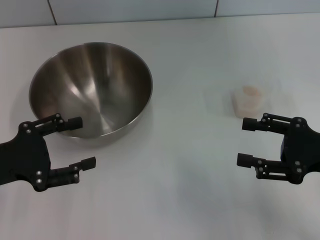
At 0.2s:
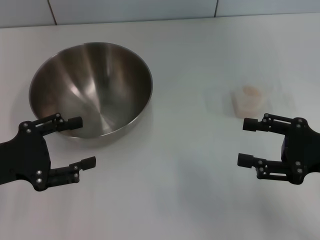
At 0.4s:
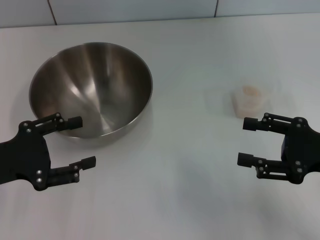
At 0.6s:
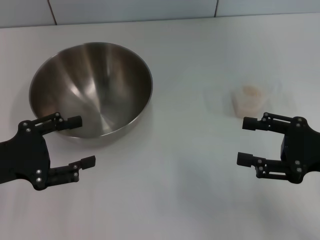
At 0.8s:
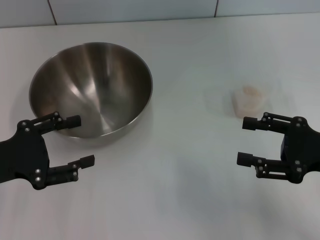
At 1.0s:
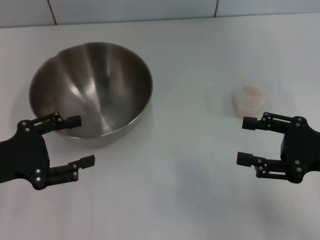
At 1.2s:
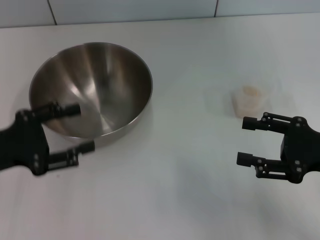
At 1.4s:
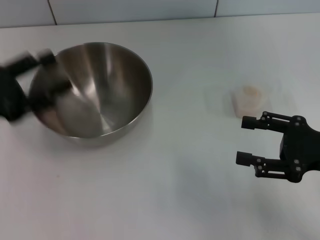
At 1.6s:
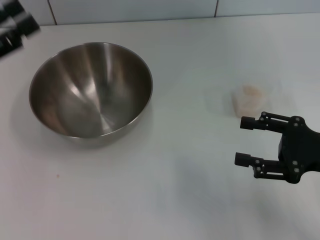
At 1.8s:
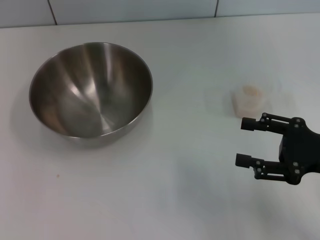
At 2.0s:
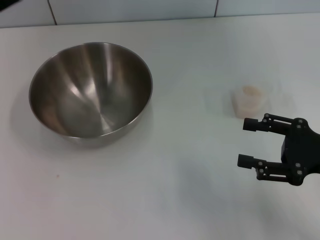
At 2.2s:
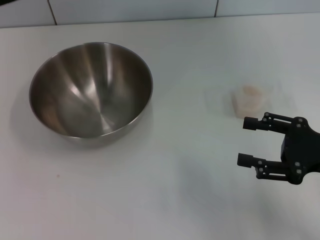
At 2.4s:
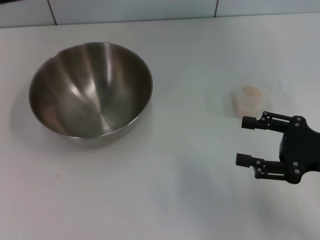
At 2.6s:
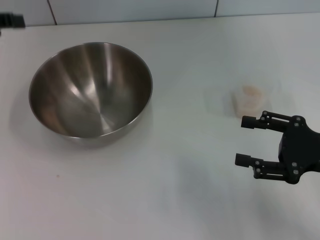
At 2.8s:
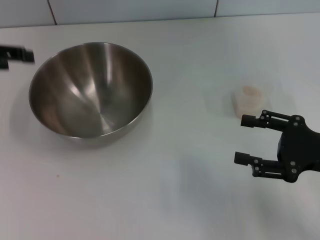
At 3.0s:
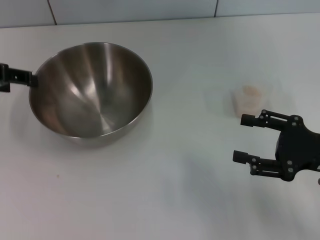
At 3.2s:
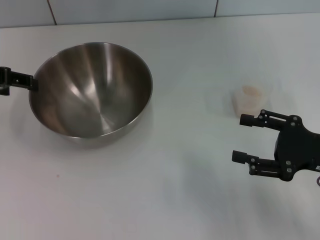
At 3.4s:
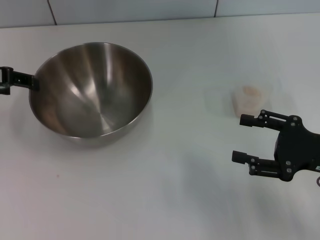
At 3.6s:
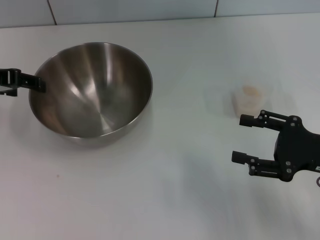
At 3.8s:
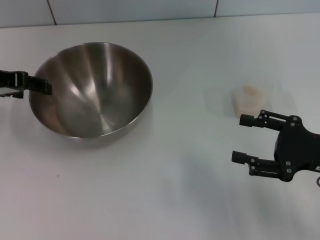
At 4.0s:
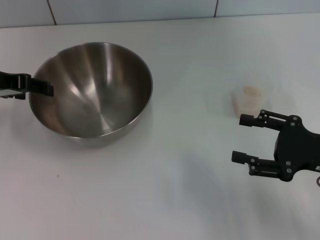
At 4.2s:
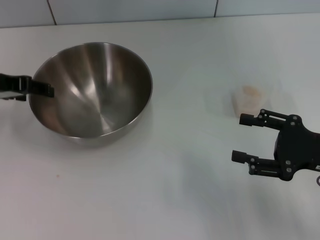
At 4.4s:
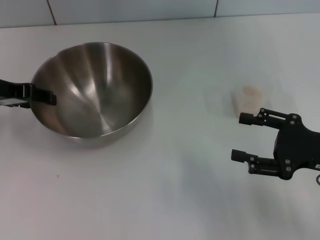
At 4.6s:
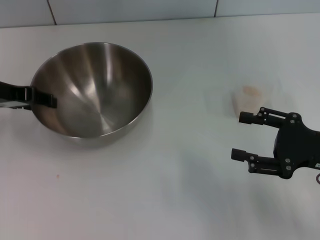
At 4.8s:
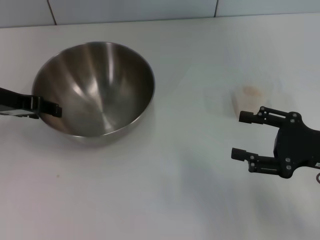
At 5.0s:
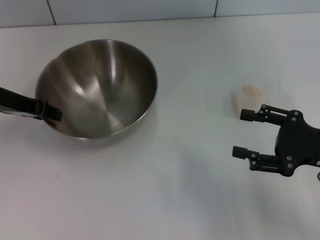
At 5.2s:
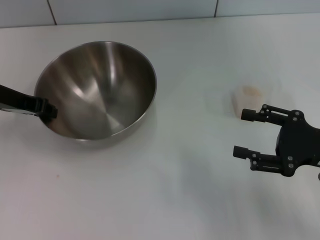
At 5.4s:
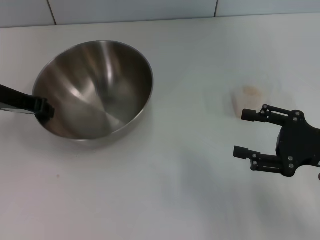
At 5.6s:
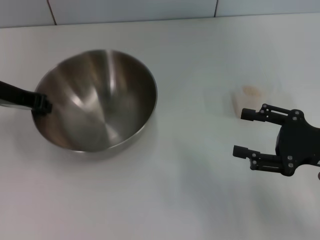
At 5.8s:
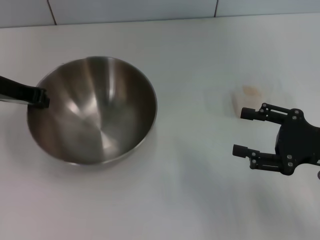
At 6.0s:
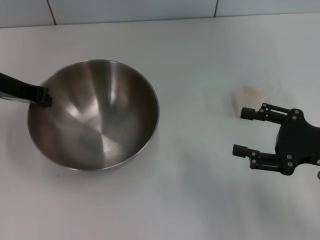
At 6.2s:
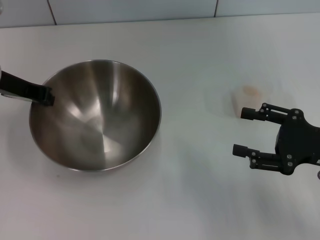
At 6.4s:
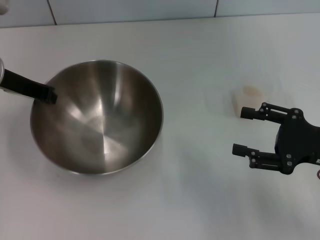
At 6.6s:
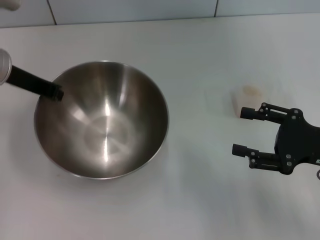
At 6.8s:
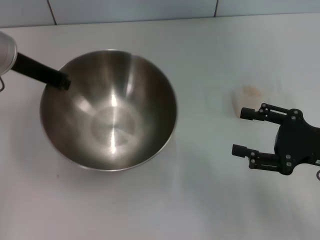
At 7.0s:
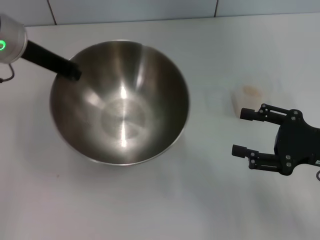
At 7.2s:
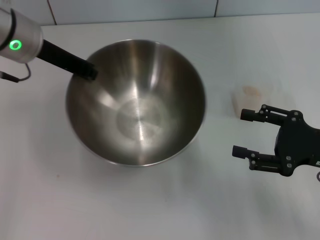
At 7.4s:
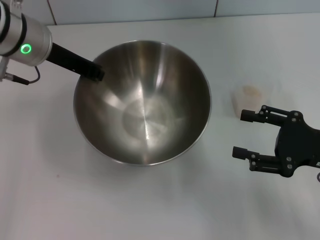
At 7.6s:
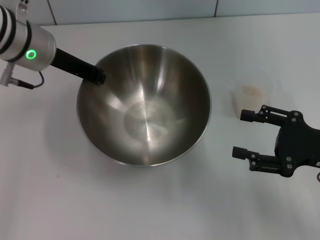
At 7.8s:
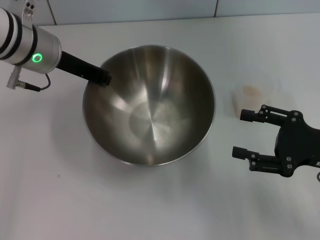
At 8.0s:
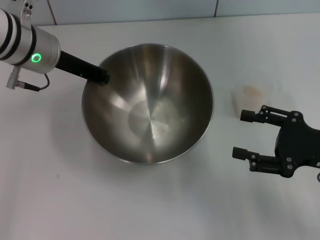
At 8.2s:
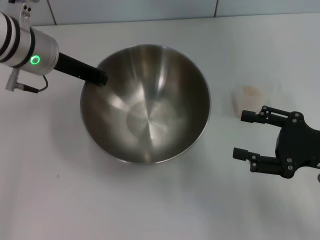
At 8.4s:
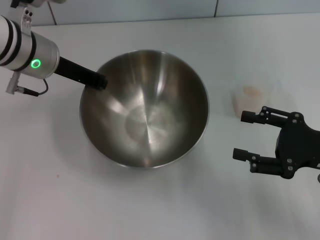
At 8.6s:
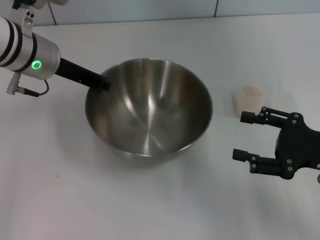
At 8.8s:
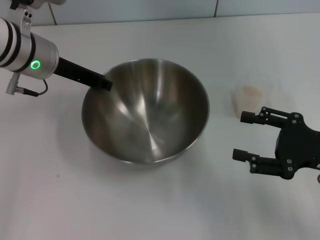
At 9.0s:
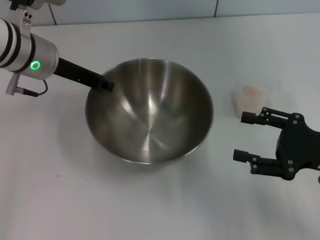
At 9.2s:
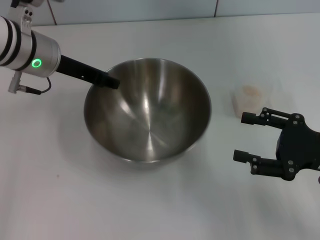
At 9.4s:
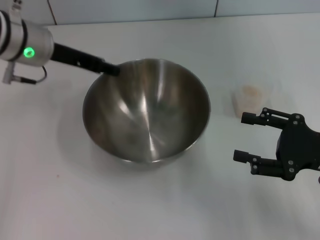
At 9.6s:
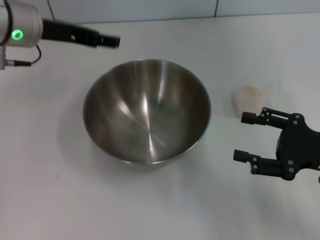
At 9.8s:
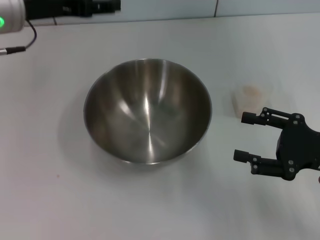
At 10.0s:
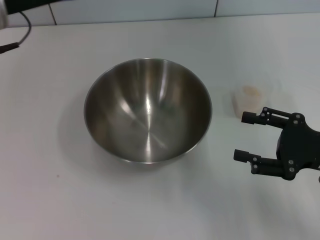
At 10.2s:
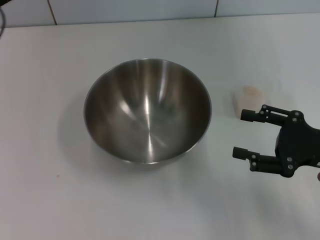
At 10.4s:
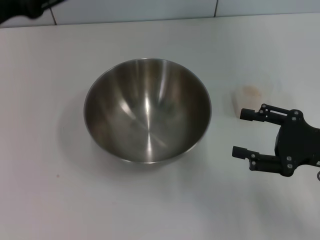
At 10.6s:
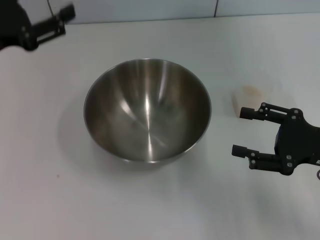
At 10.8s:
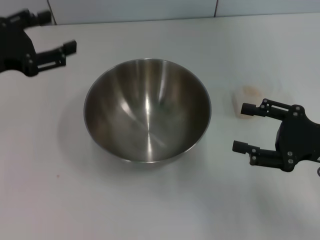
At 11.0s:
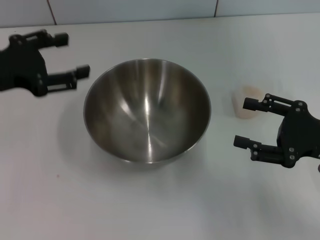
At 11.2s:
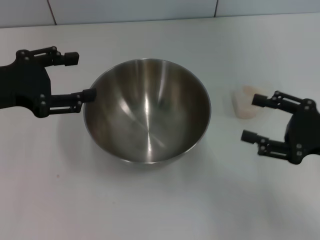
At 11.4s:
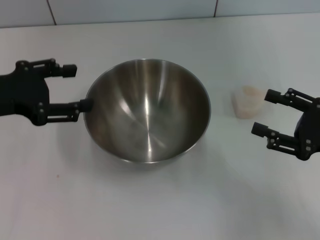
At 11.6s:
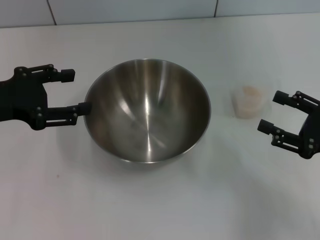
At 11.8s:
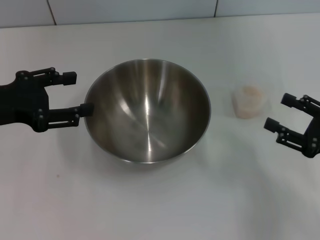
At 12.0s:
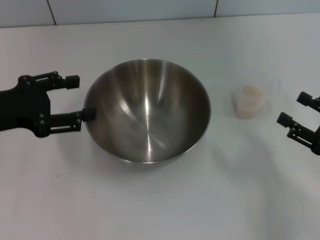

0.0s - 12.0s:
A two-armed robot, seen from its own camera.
Task of the whole recording: Place the bowl in the middle of the table with one hand and pour the rice from the grain cup into it with the other hand.
Step, 0.0s - 6.8s: Pick up the bowl with the left gripper.
Step, 7.0s - 9.4s: Place the bowl in the center of view with the left gripper.
0.0s - 1.6s: The left gripper is displaced upward by approximately 5 cm.
1.6s - 3.0s: The left gripper moves forward, some 5 cm.
3.0s - 4.4s: The left gripper travels downward by about 5 cm.
4.4s - 6.0s: The left gripper closes up.
6.0s - 7.6s: The left gripper heads to the right, covering approximately 10 cm.
7.6s - 9.0s: There are only small adjustments of the grippers.
9.0s - 10.4s: The left gripper goes approximately 10 cm to the left and backward, and opens up.
10.4s - 12.0s: The left gripper ends up approximately 5 cm from where it was. The right gripper changes place by some 5 cm.

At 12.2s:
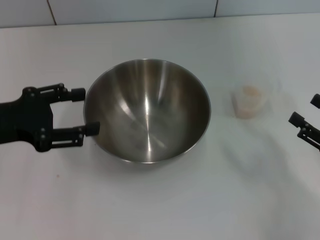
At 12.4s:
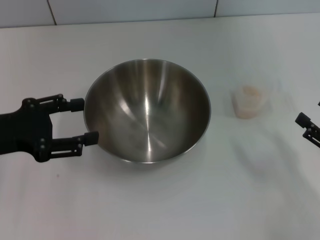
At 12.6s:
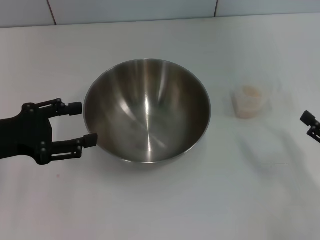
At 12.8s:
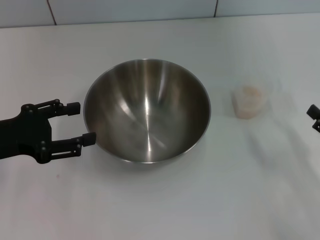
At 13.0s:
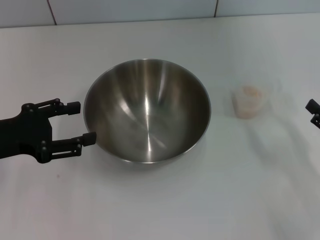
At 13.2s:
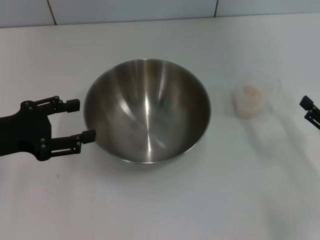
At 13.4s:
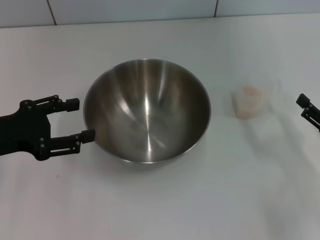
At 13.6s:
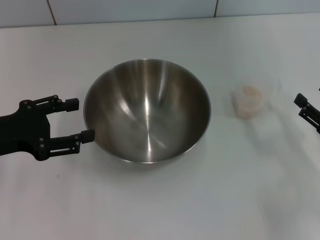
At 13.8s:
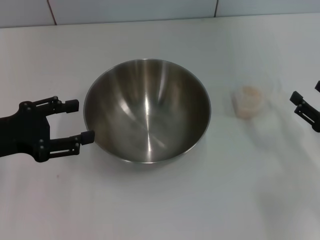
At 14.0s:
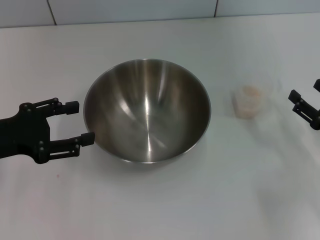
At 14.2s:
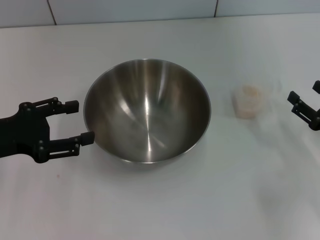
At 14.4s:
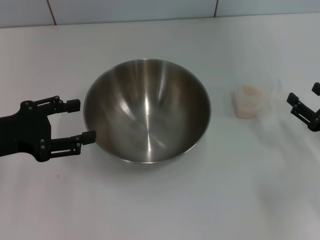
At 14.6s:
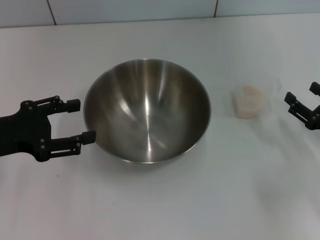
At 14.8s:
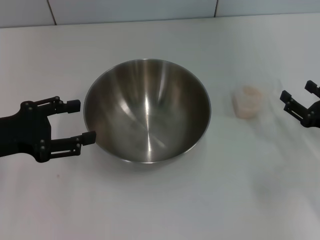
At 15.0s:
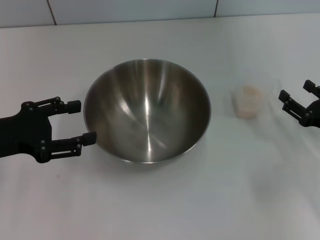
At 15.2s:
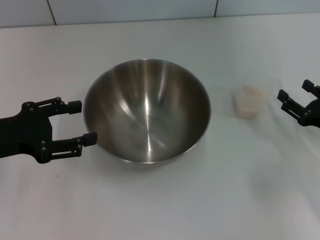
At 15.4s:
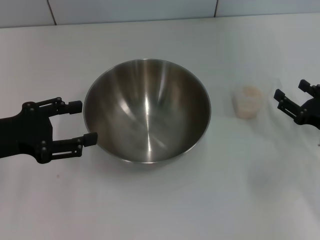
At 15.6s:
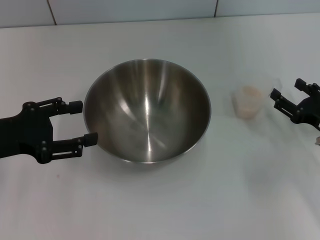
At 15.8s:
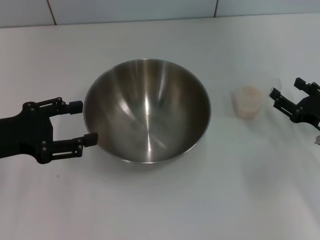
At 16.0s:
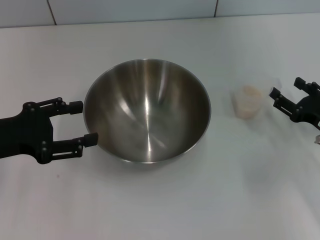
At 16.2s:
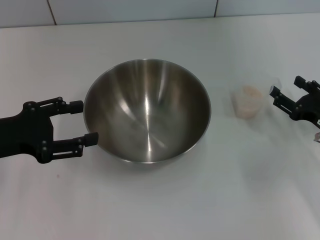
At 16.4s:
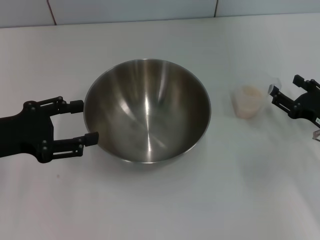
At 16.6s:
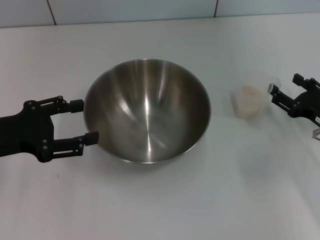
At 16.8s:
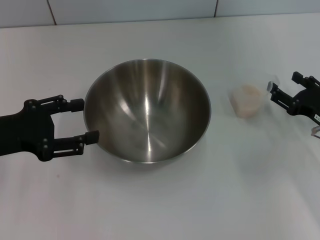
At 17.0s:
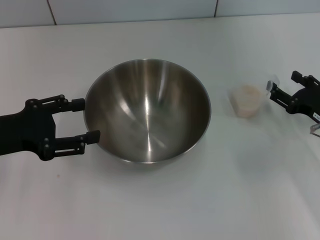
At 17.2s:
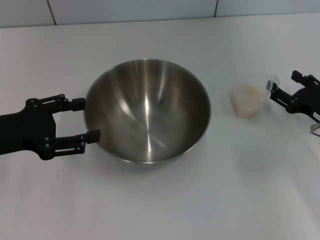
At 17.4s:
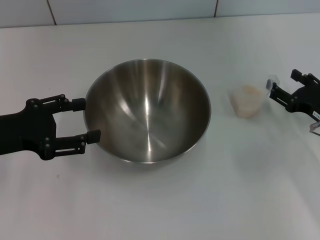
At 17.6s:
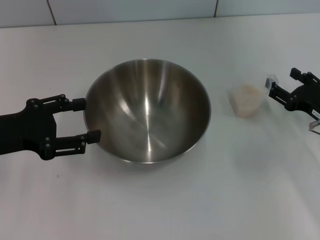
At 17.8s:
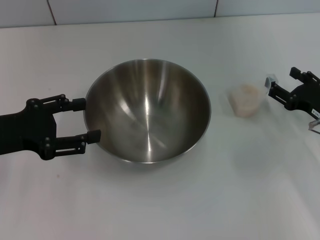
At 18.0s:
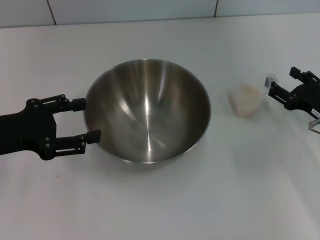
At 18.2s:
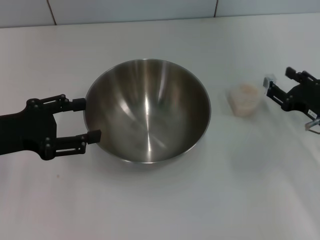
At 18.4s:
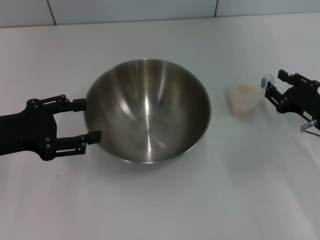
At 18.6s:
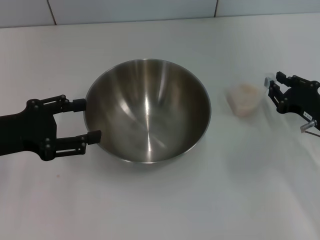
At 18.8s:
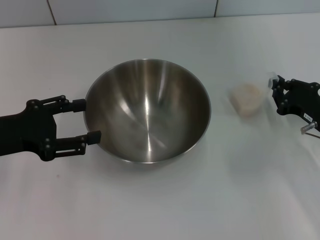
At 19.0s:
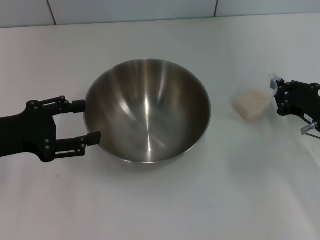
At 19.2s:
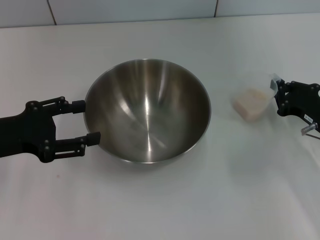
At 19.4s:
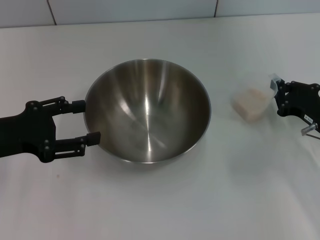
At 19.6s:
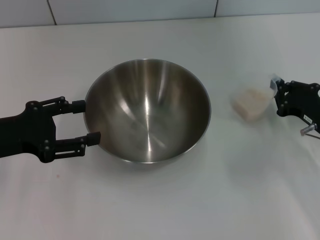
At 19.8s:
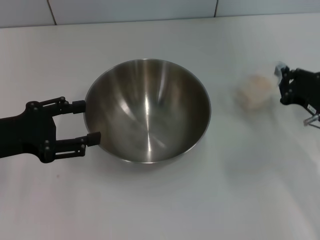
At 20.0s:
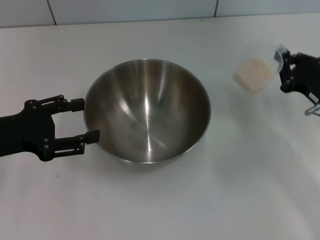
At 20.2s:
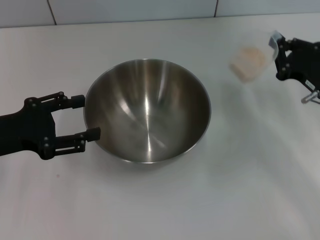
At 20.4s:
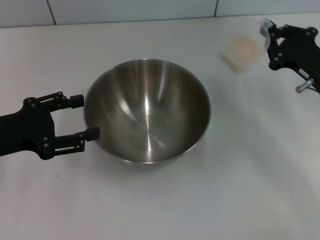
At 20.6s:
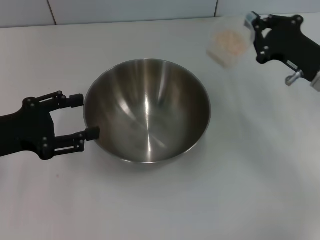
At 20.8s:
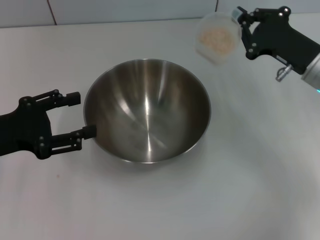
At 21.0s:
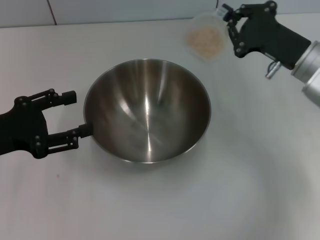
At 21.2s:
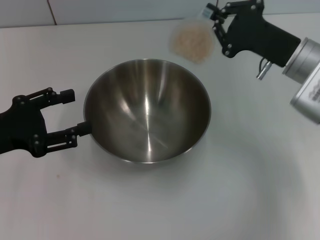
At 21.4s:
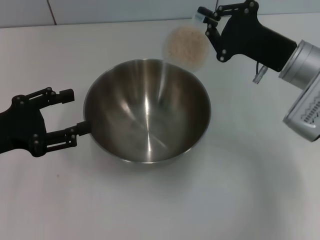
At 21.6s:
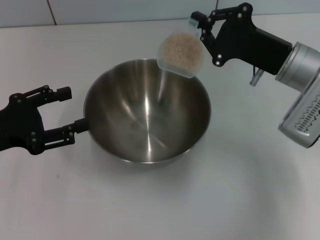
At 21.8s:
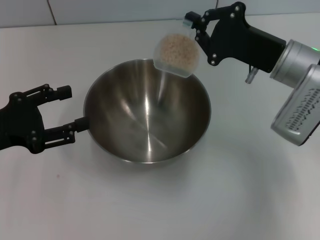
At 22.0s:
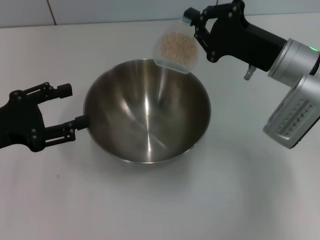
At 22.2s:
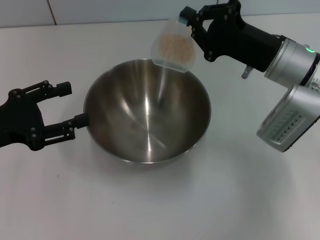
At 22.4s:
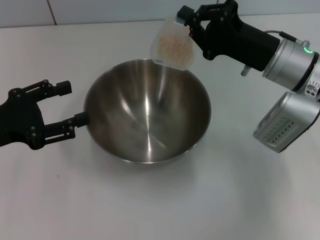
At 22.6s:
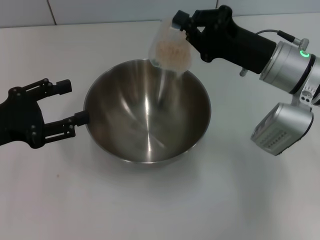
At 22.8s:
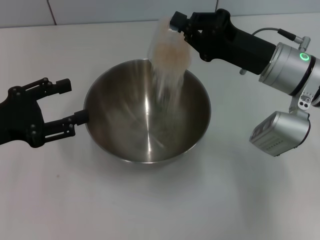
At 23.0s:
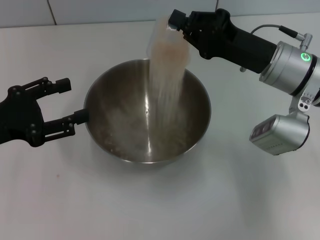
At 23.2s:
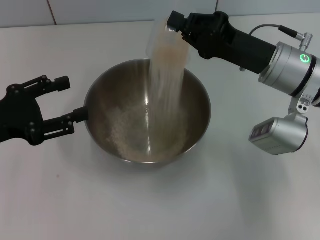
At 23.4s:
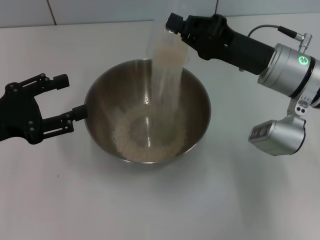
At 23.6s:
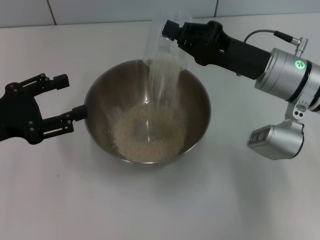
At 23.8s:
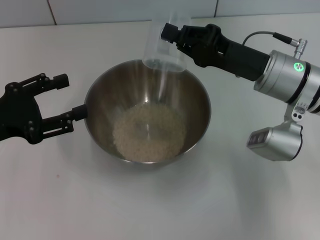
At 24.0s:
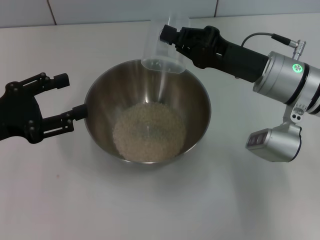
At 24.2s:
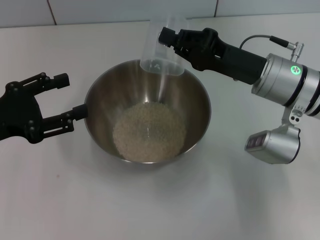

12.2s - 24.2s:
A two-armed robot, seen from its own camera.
Task of the whole recording: Place the bowl in the middle of the table with one hand and pour the rice from the grain cup into it with the other hand.
Step, 12.2s - 20.2s: Pick up the cup with rice in it with the right gripper.
12.2s - 13.8s: The grippers move only a little.
13.8s - 16.6s: The grippers make only small movements.
16.6s - 18.2s: There are only small adjustments of the grippers.
18.2s - 19.8s: The right gripper closes.
19.8s - 21.2s: The right gripper goes about 15 cm upward, to the left and forward.
22.6s - 24.2s: The grippers stay close to where they were, moving slightly.
